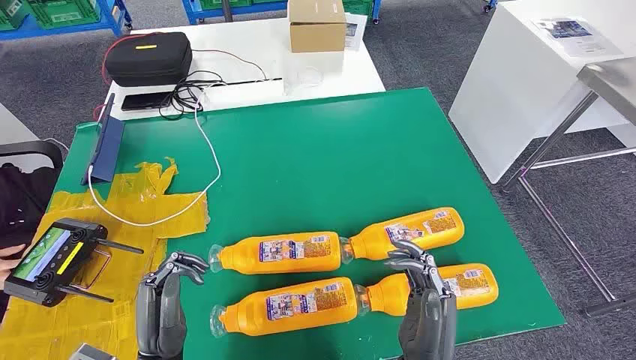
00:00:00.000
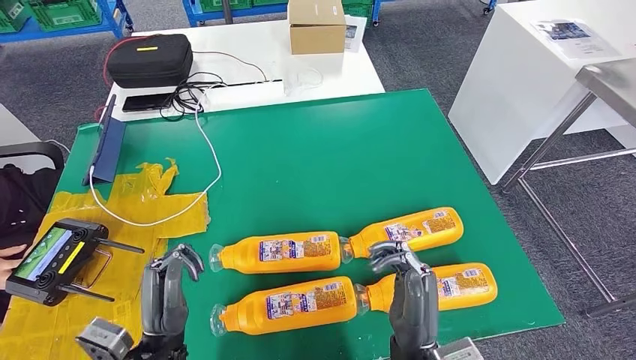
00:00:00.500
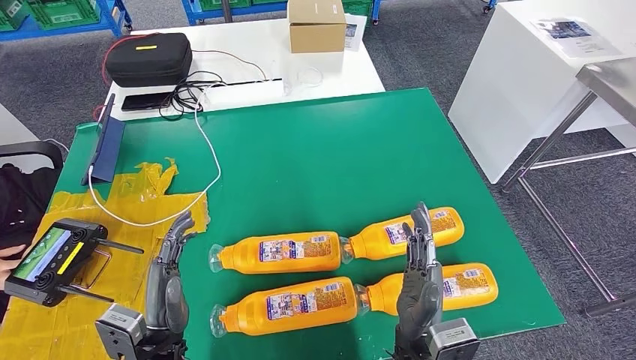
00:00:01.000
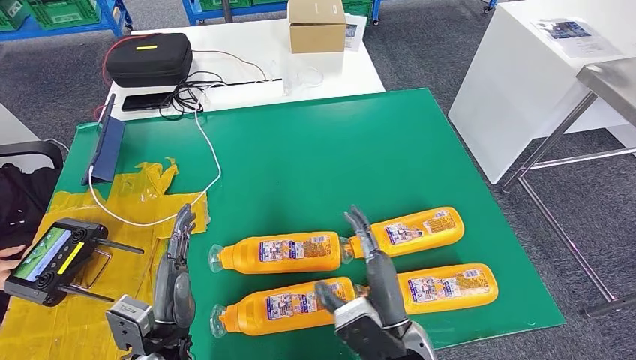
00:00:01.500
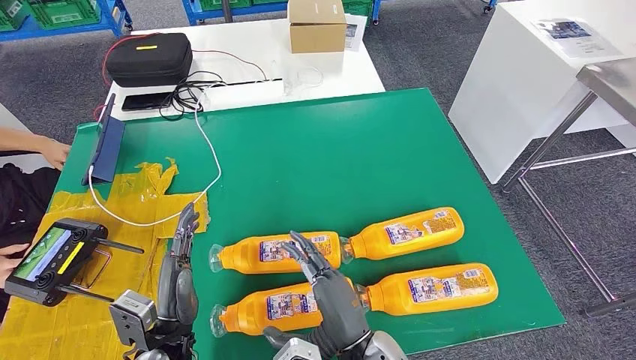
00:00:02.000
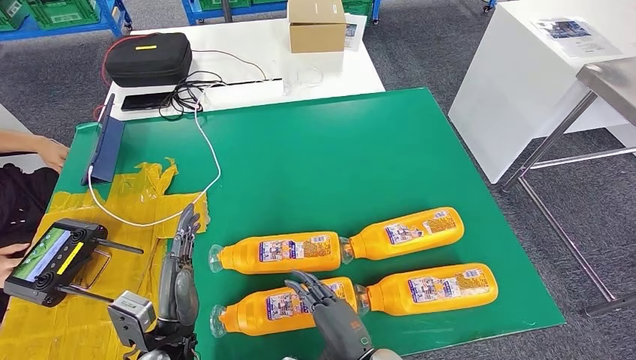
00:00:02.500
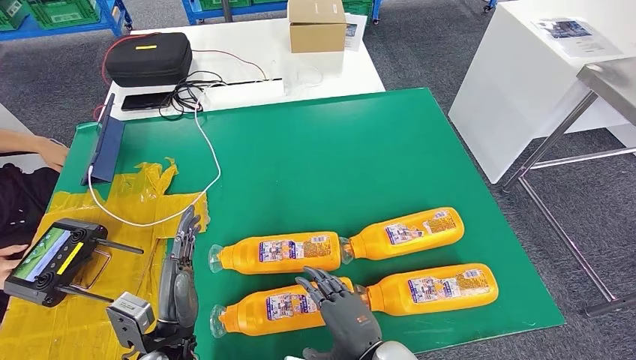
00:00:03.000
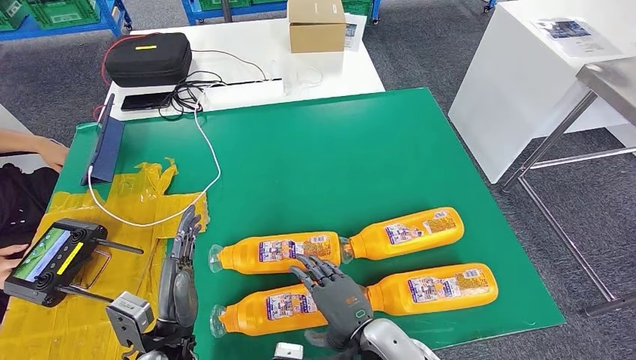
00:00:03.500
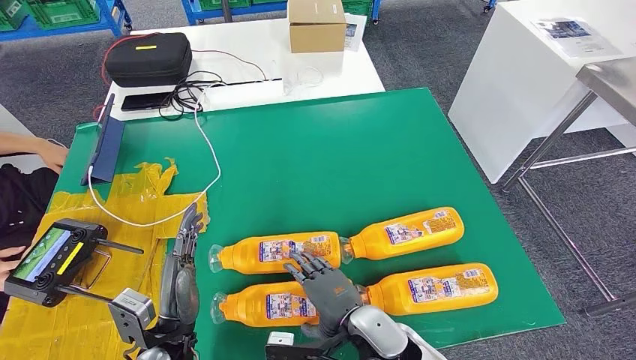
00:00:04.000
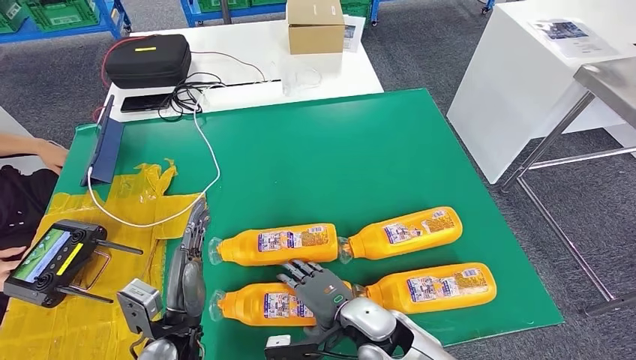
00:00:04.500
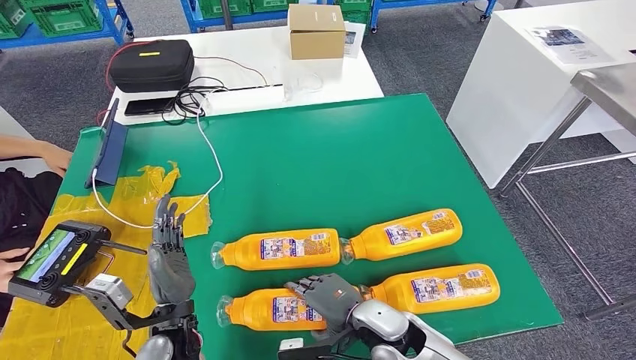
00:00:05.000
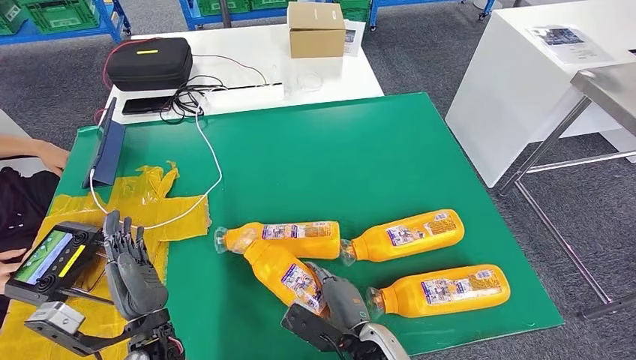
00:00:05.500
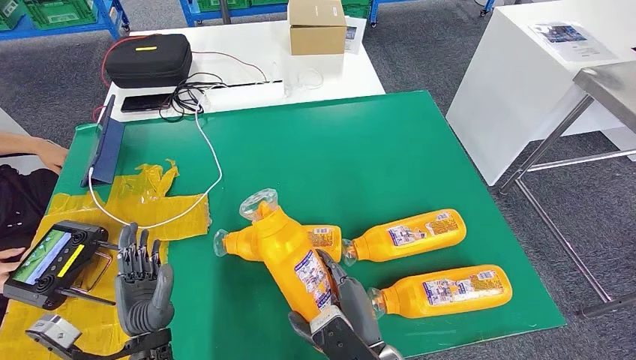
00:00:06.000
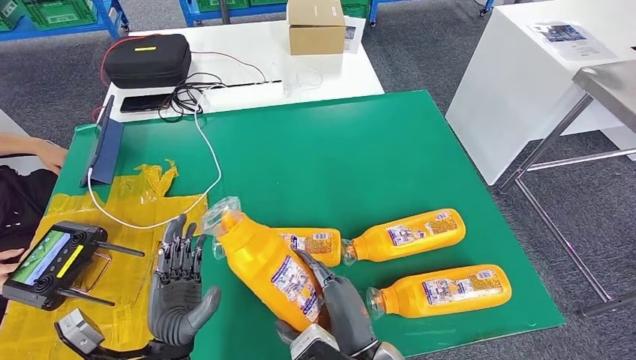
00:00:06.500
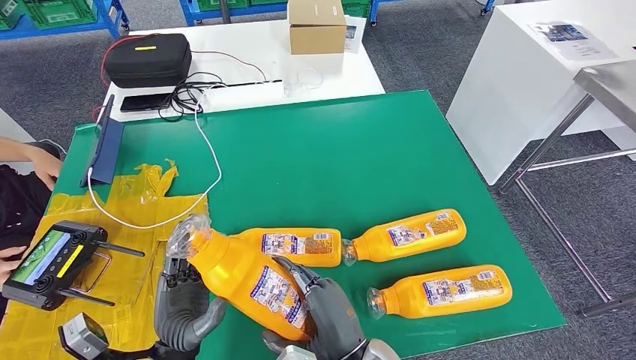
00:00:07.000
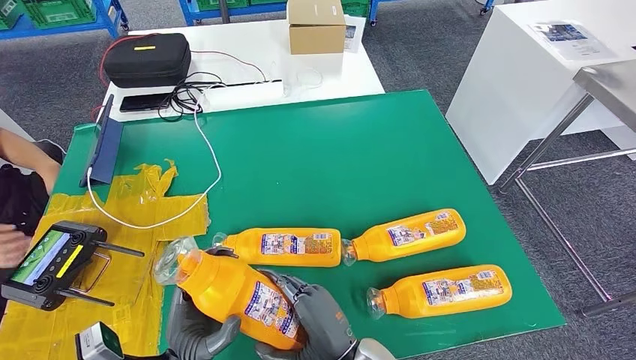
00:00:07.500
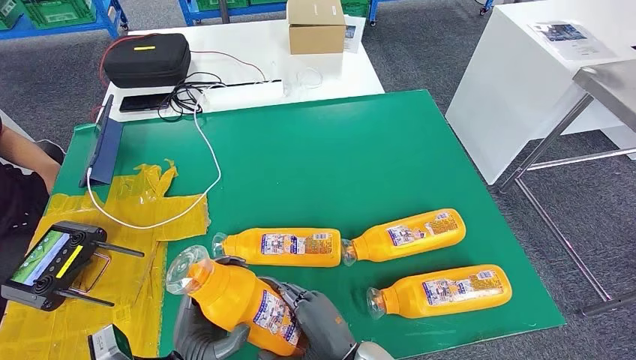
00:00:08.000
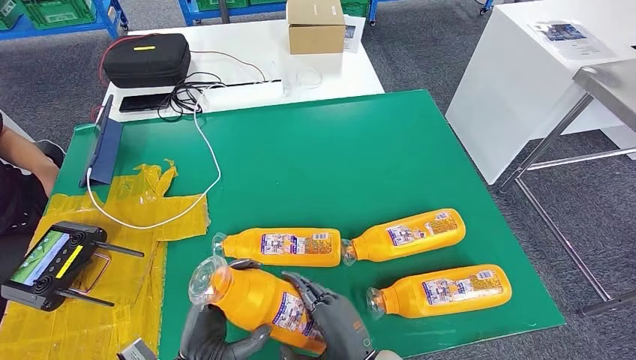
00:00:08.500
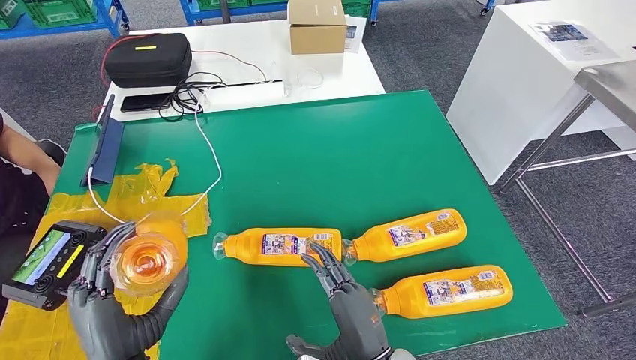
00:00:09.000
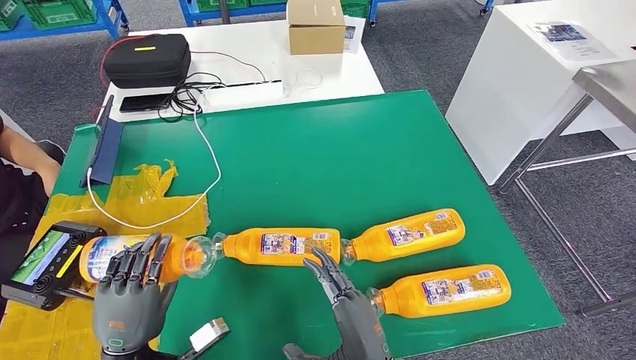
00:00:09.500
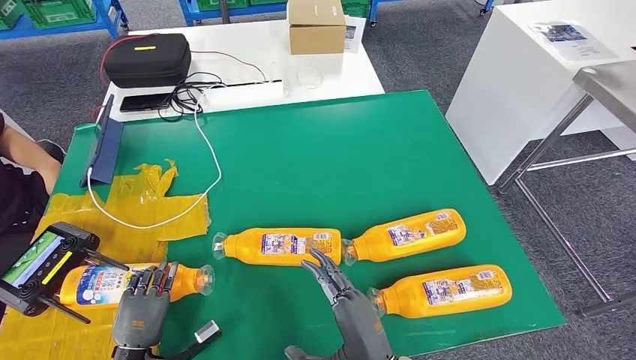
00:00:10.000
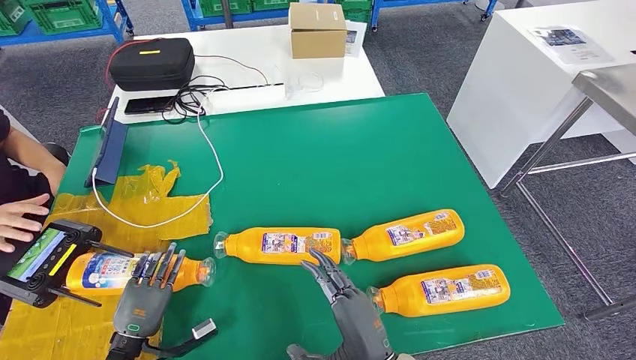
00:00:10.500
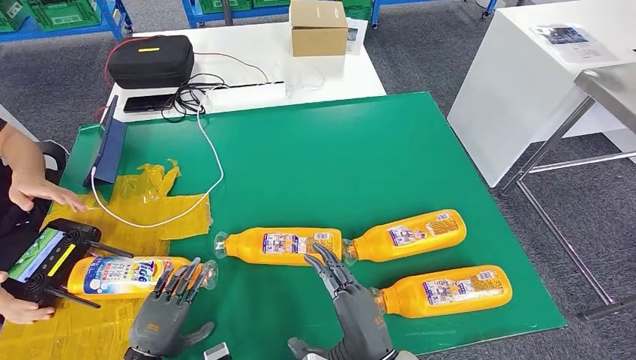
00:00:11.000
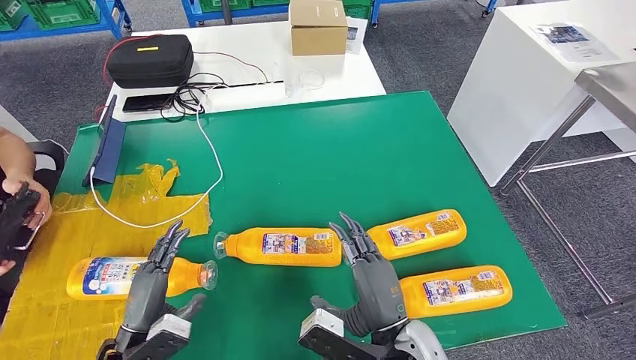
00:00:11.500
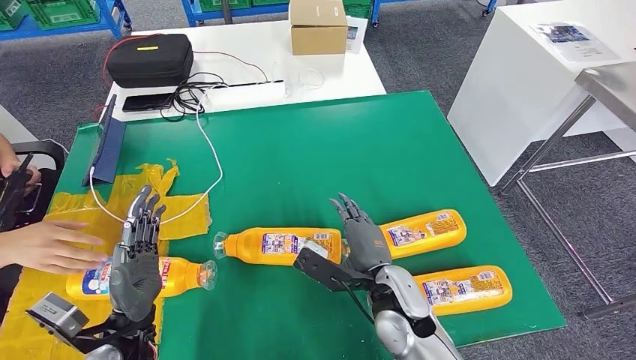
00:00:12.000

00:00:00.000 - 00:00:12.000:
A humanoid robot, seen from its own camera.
Step, 00:00:00.000 - 00:00:06.500: Take the fast-moving consumer goods bottle from the table.
Step, 00:00:07.500 - 00:00:11.500: Flip the fast-moving consumer goods bottle to the front side.
00:00:02.000 - 00:00:04.000: The right hand heads forward and downward, covering some 10 cm.
00:00:08.000 - 00:00:10.000: The left hand moves to the left and downward, about 15 cm.
00:00:10.000 - 00:00:12.000: The left hand travels upward and to the right by about 15 cm; the right hand heads forward, covering roughly 15 cm.

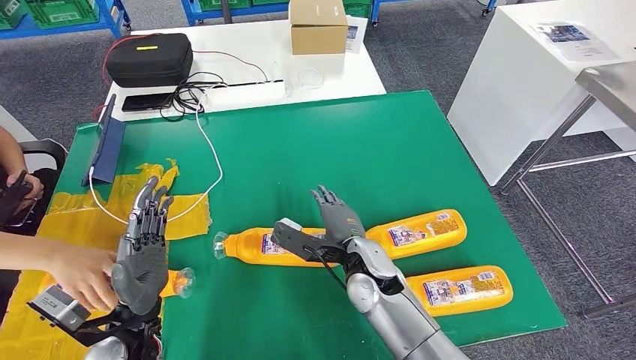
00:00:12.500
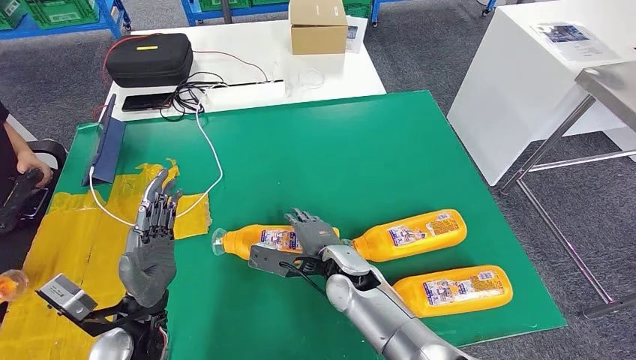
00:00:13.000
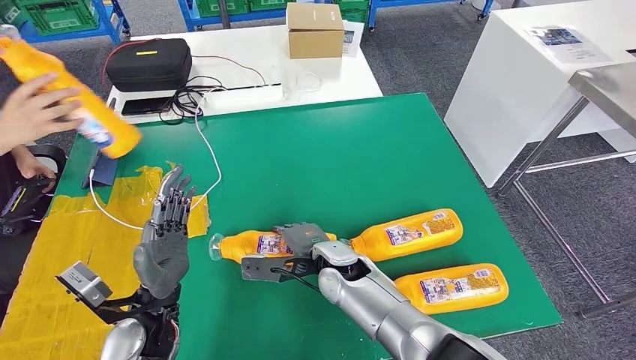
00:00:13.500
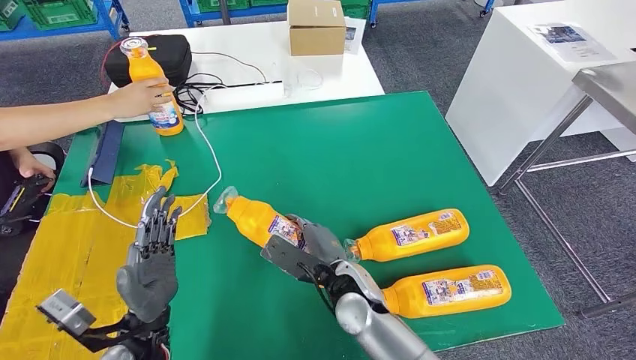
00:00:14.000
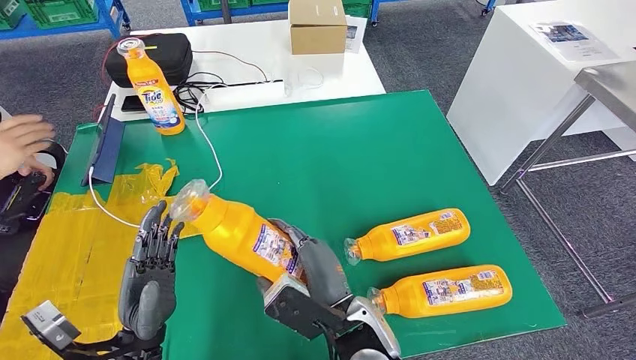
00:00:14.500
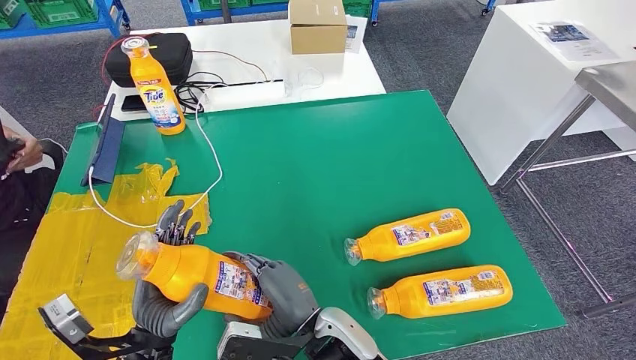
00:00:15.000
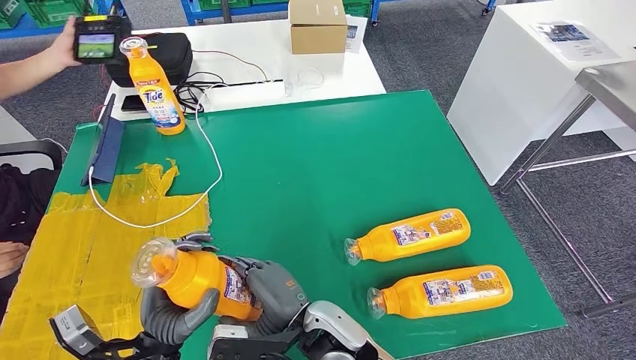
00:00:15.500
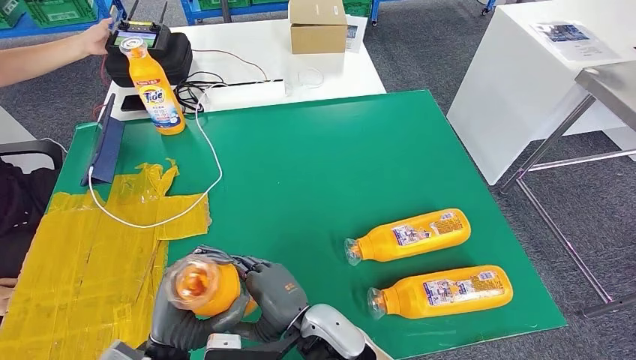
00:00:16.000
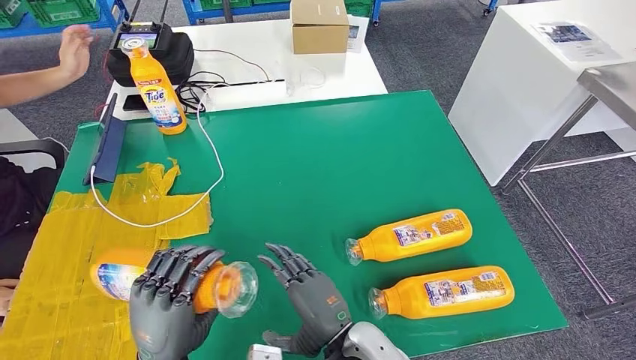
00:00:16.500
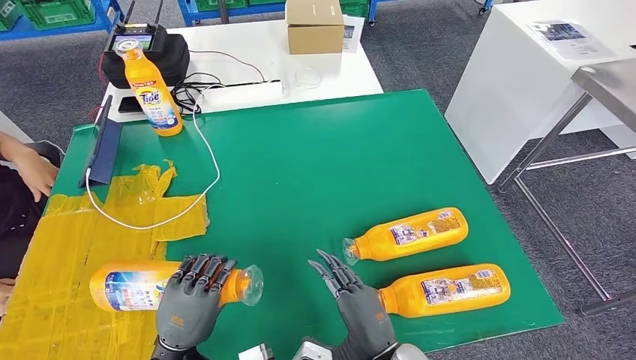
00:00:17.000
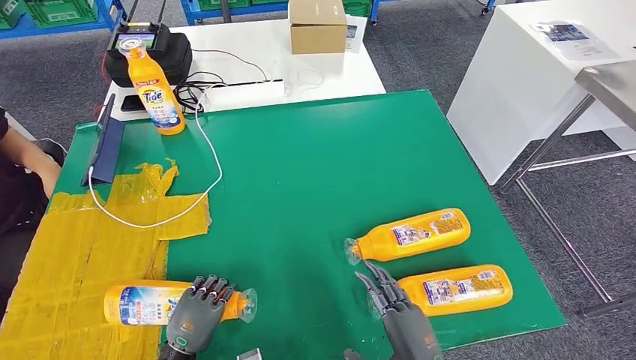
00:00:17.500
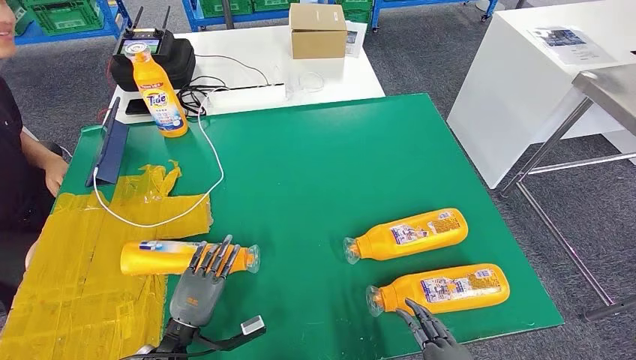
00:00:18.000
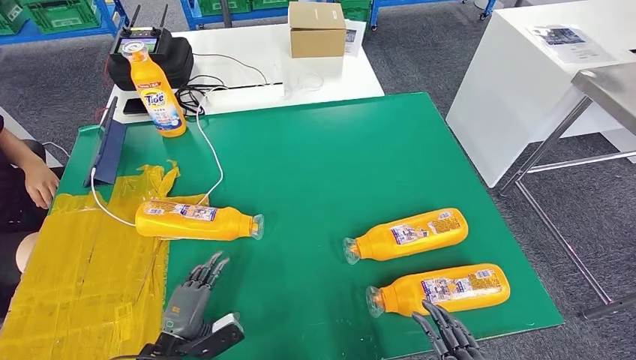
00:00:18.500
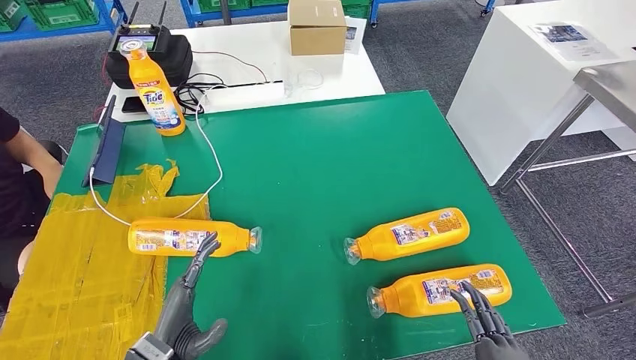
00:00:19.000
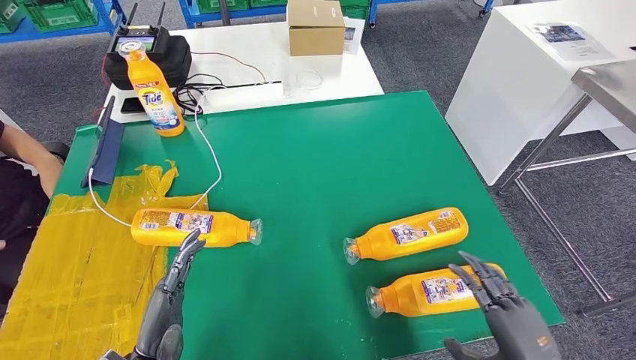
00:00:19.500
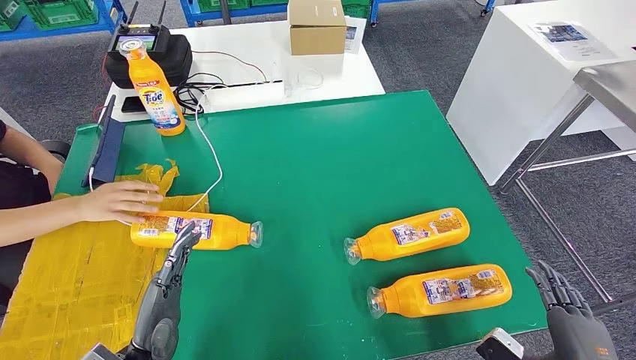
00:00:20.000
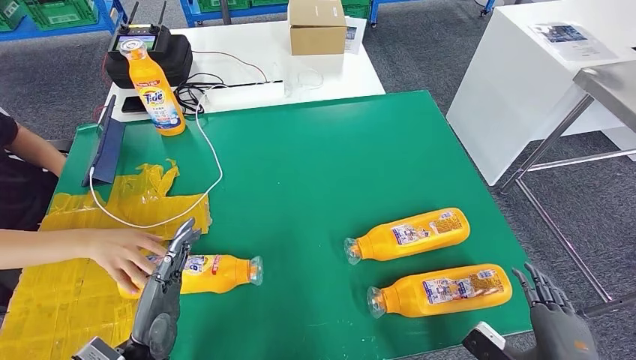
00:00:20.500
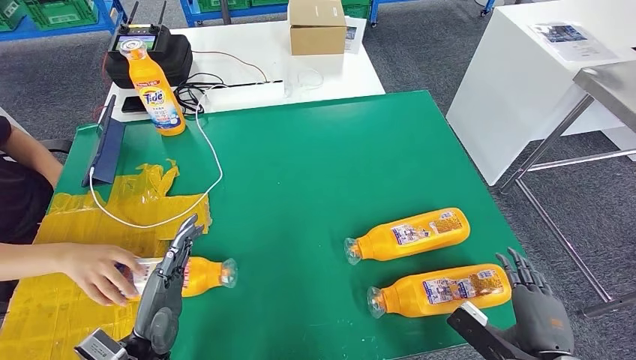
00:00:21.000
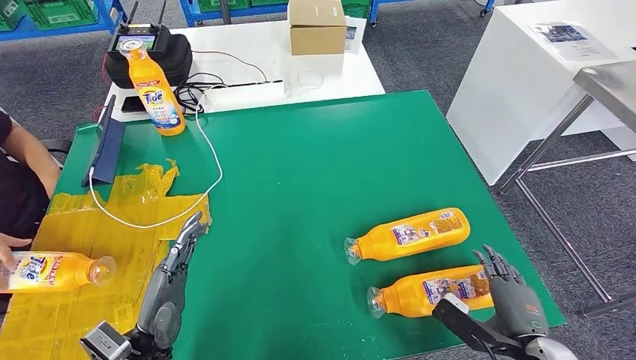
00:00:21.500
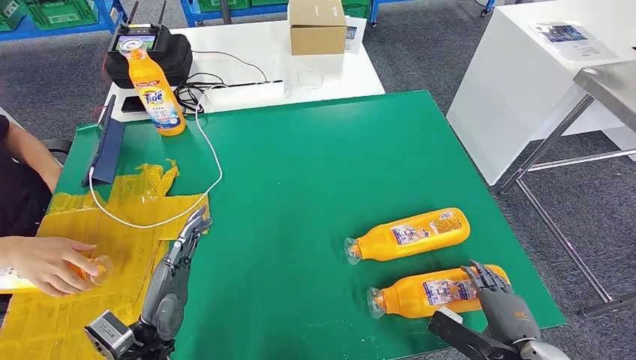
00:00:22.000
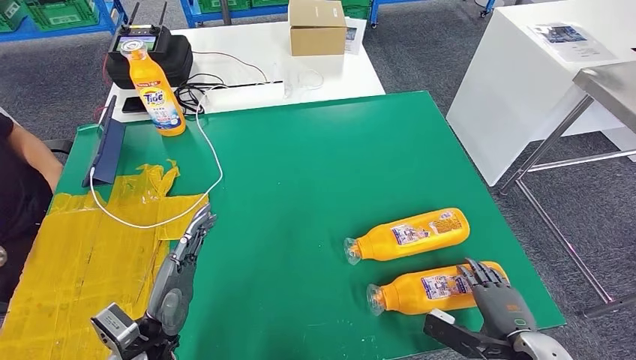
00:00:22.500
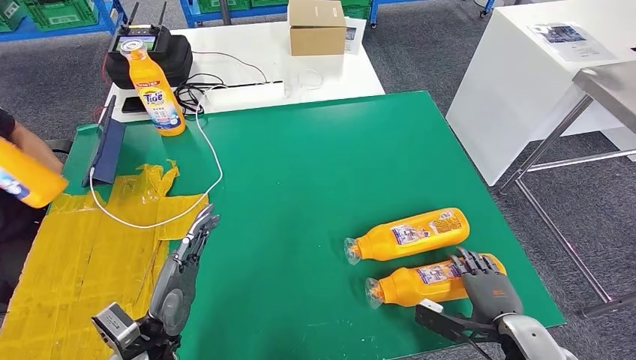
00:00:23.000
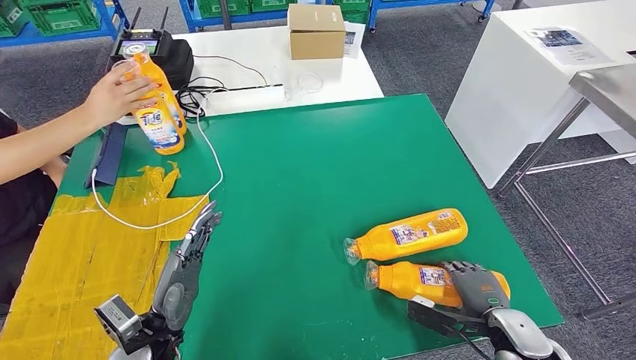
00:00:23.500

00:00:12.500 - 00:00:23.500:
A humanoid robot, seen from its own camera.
Step, 00:00:12.500 - 00:00:15.000: Pick up the fast-moving consumer goods bottle from the table.
Step, 00:00:15.500 - 00:00:19.000: Flip the fast-moving consumer goods bottle to the front side.
00:00:12.500 - 00:00:14.500: The right hand shifts roughly 10 cm backward.
00:00:20.000 - 00:00:21.500: The right hand heads forward, covering approximately 5 cm.
